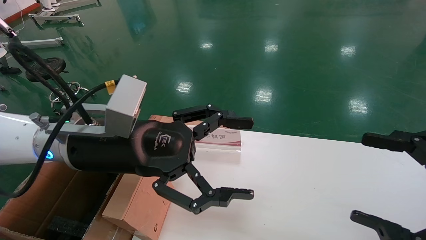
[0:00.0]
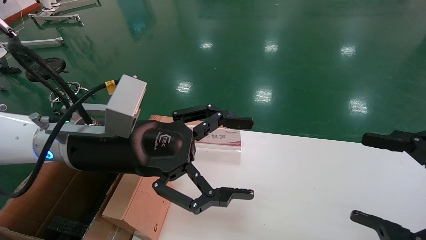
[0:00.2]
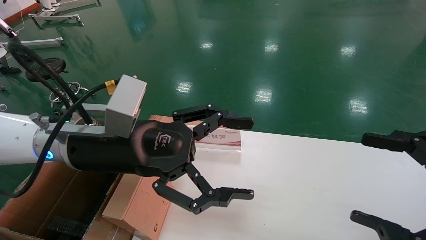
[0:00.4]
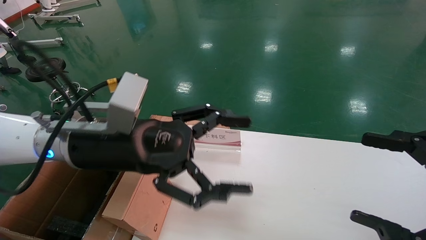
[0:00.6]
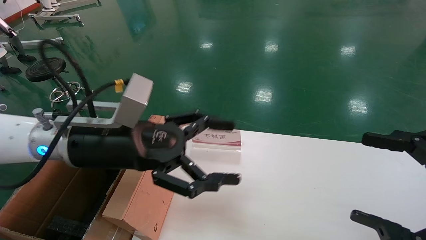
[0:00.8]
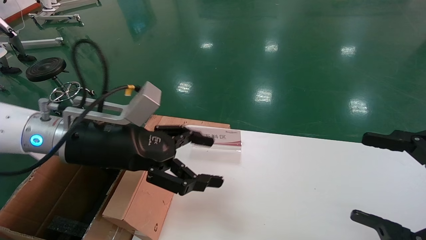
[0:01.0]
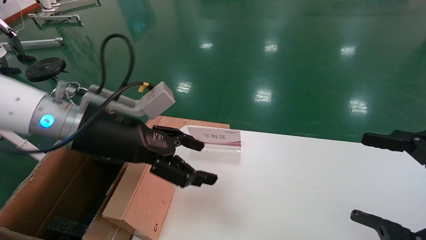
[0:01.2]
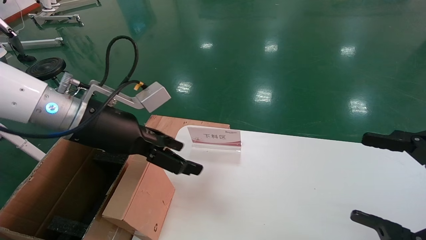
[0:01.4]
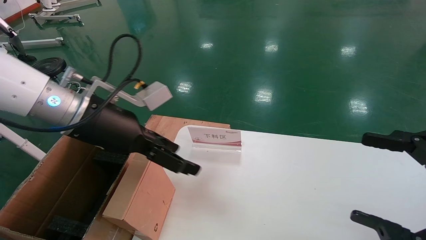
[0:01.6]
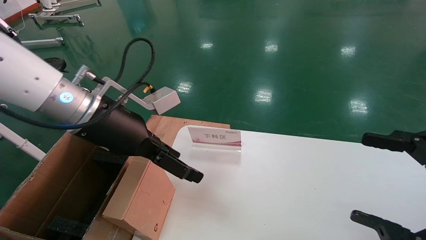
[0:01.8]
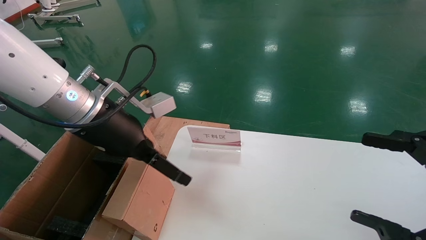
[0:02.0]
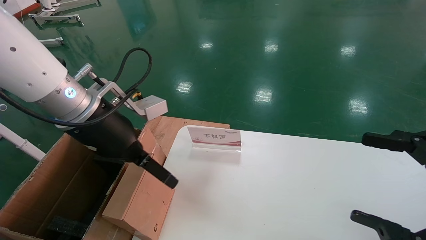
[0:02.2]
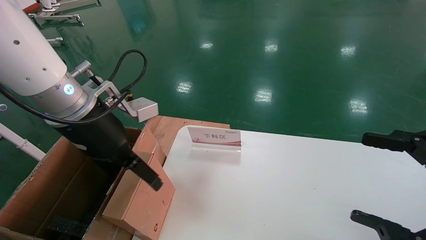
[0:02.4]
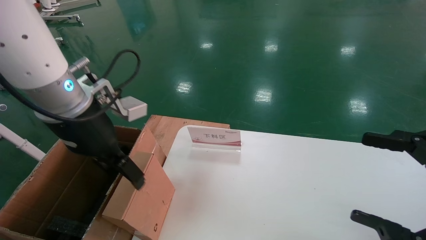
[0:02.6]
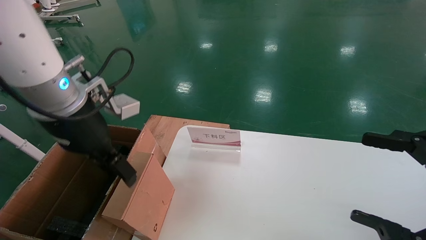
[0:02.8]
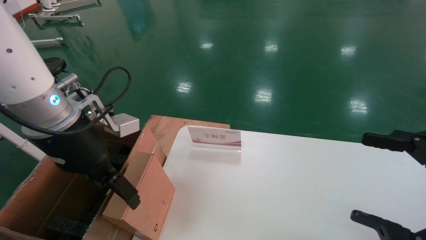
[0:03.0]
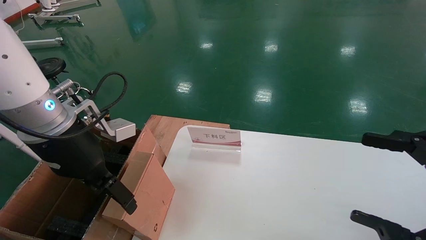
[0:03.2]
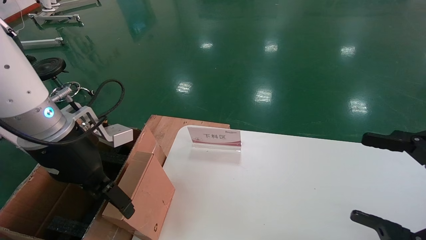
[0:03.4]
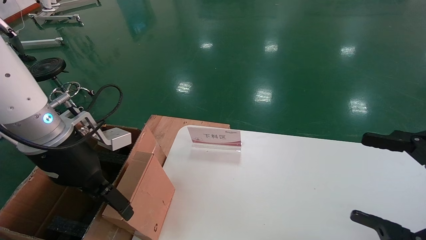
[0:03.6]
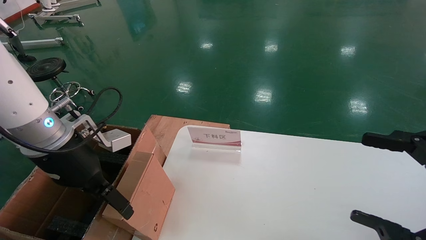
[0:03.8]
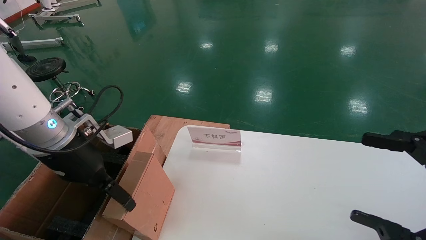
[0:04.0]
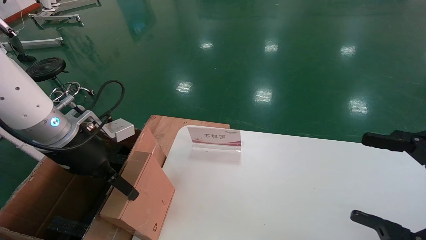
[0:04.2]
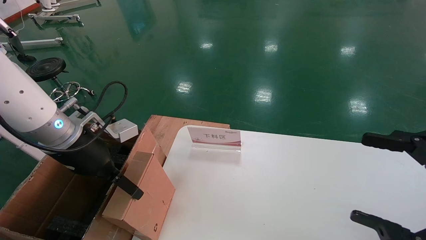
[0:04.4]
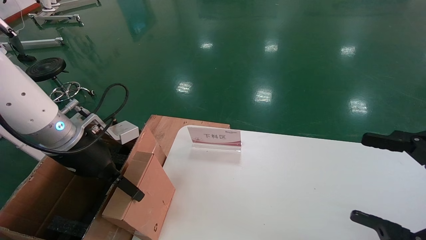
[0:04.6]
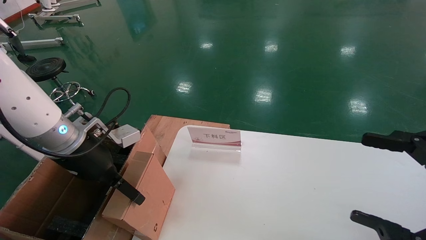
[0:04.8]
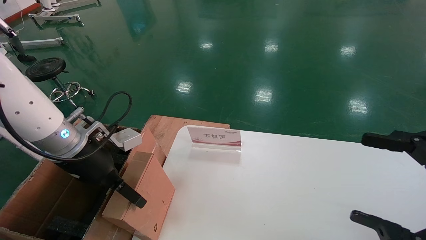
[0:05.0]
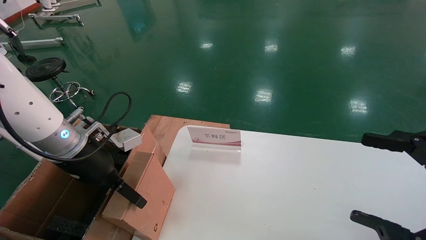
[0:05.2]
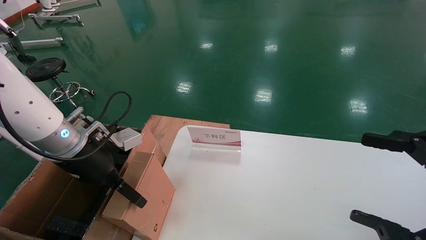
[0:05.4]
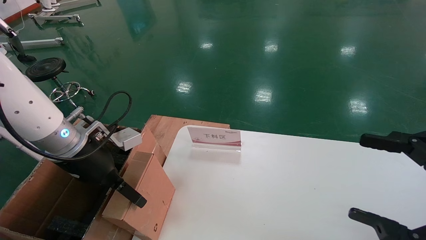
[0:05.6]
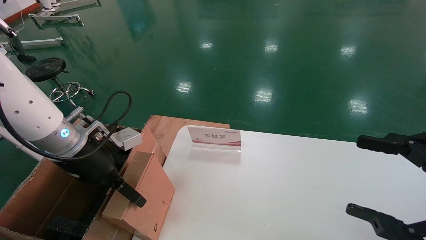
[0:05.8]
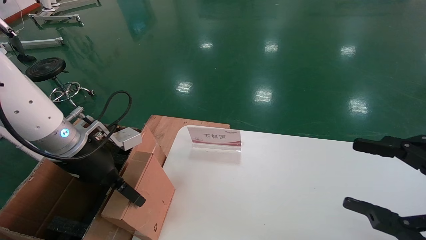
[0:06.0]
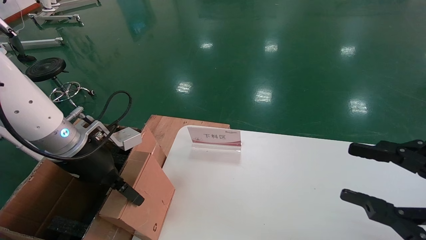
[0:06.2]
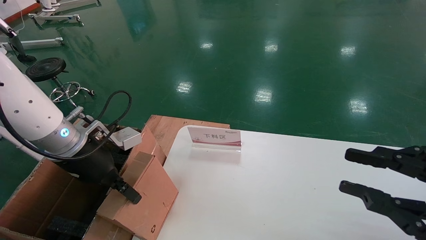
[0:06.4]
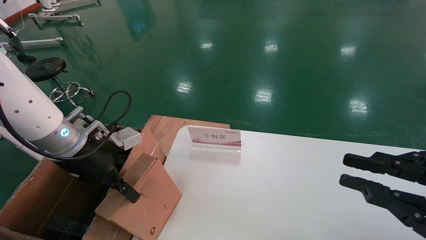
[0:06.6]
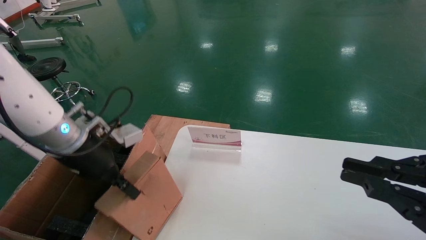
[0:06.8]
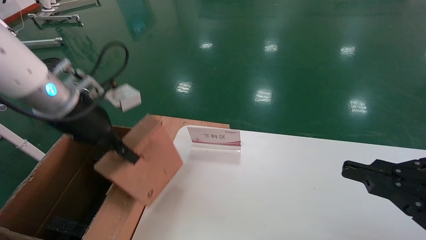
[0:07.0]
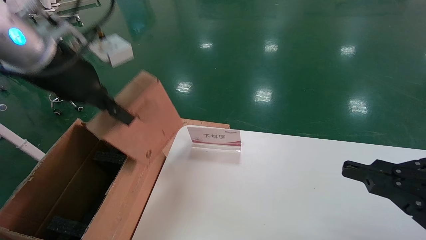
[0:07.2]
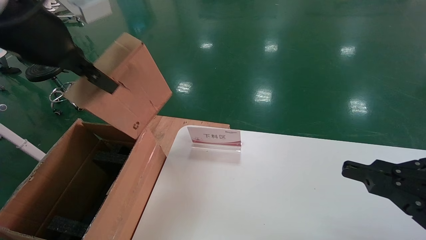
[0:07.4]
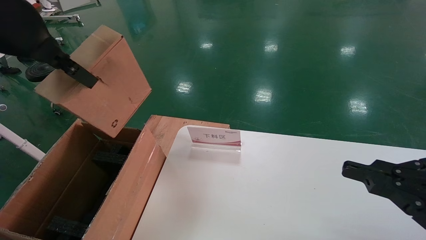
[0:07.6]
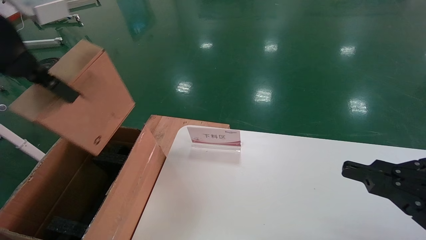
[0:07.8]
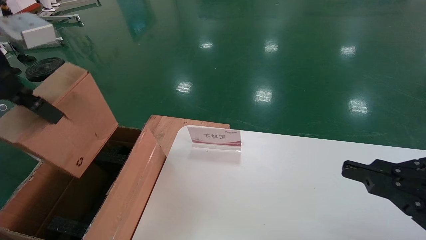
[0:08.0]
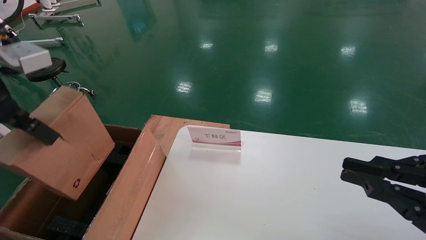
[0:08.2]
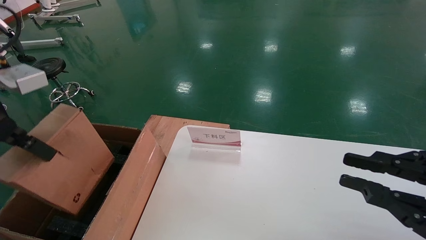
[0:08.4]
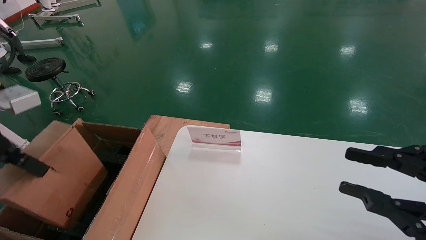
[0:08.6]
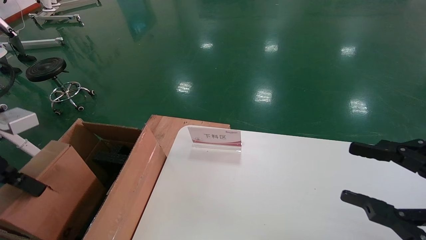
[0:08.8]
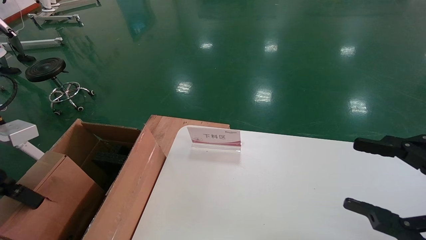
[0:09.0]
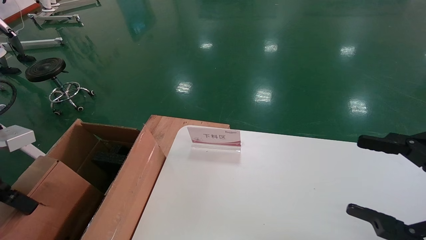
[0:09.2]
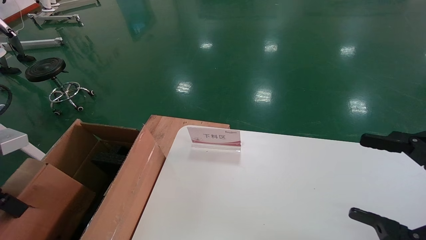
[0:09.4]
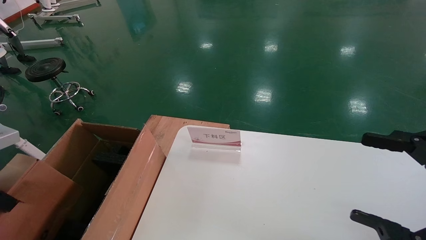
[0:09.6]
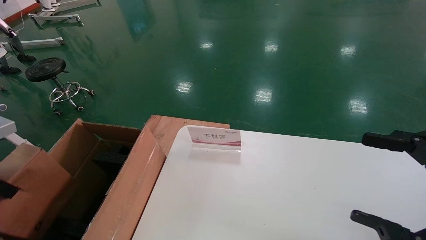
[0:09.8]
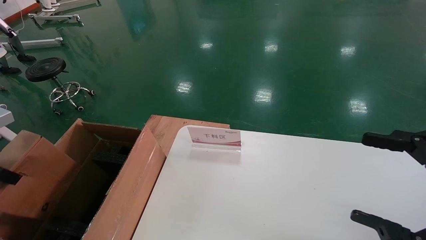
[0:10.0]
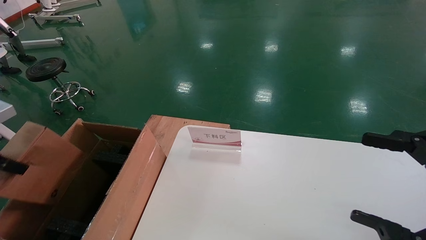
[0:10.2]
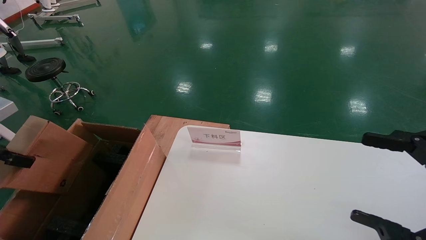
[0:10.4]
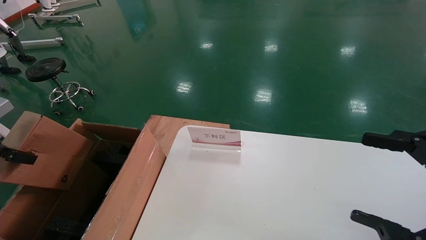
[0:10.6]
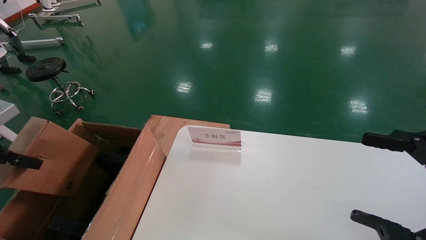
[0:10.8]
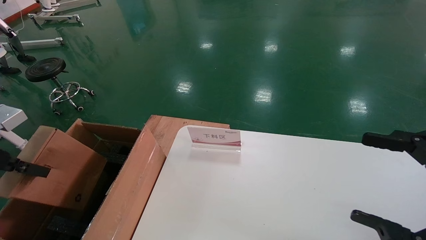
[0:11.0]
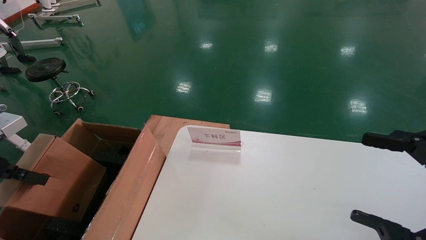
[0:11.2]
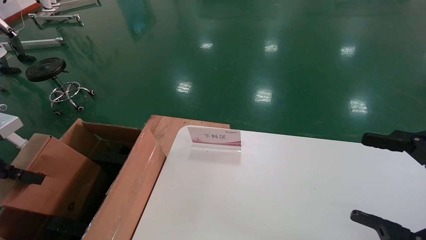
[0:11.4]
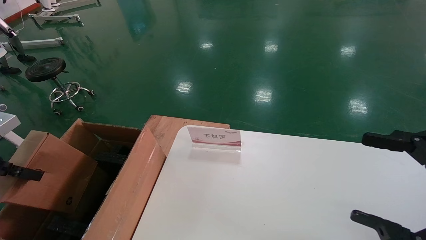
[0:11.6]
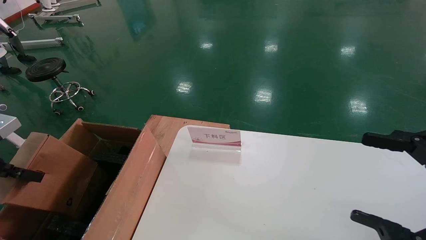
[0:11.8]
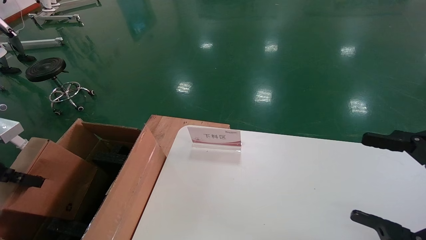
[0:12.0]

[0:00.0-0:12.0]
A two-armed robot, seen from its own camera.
Task of the whole recording: pick up the small cardboard box and load it into the large cardboard box.
Step, 0:00.8 to 0:06.6: Pick up the mouse and power cord box.
0:00.0 to 0:01.6: The left gripper ends up approximately 5 cm from where it was.
0:03.0 to 0:04.4: The left gripper heads downward, covering approximately 5 cm.
0:04.4 to 0:06.0: The grippers stay close to where they were, moving slightly.
0:06.0 to 0:07.6: The left gripper moves upward, approximately 20 cm, and closes its fingers. Meanwhile the right gripper closes.
0:07.6 to 0:09.0: The left gripper shifts about 20 cm downward and to the left. The right gripper opens its fingers.
0:09.0 to 0:10.4: The left gripper heads to the left, covering about 10 cm. Meanwhile the right gripper opens up.
0:10.4 to 0:12.0: The grippers make only small movements.

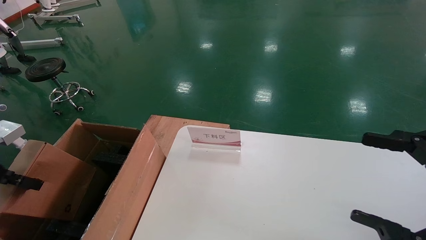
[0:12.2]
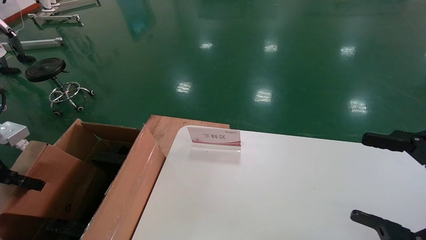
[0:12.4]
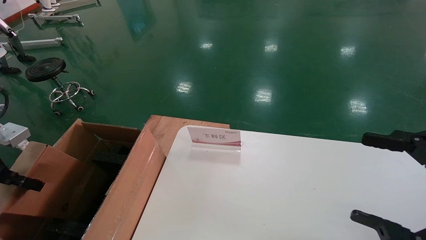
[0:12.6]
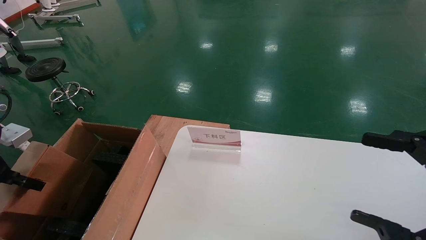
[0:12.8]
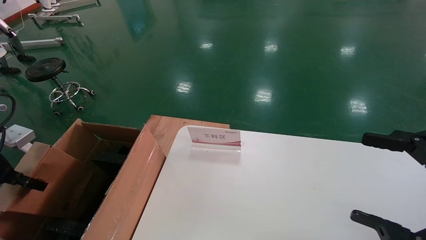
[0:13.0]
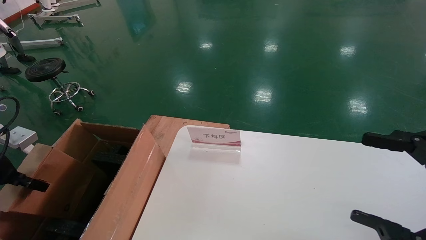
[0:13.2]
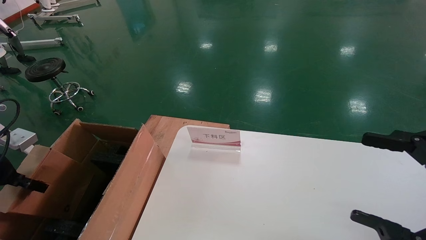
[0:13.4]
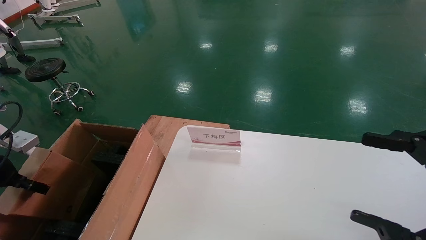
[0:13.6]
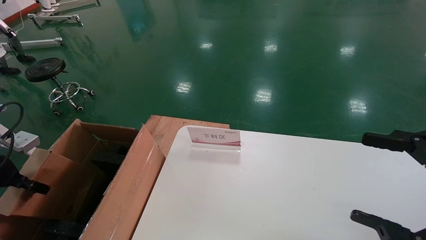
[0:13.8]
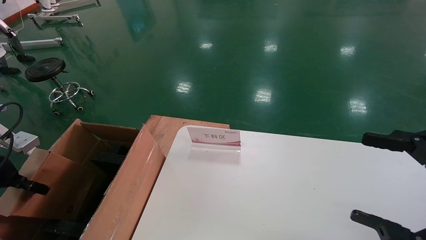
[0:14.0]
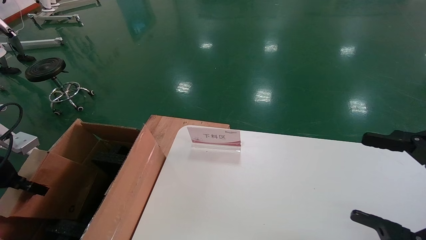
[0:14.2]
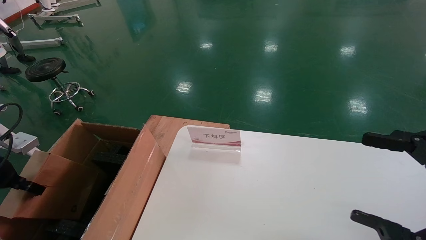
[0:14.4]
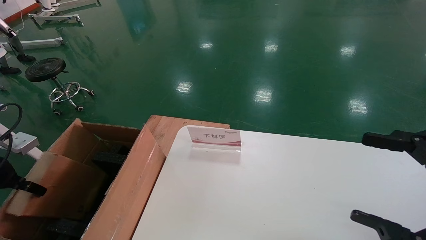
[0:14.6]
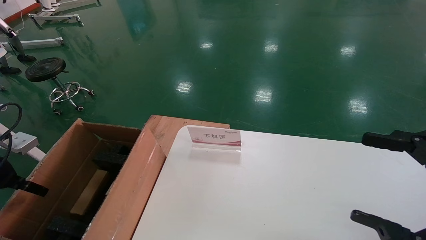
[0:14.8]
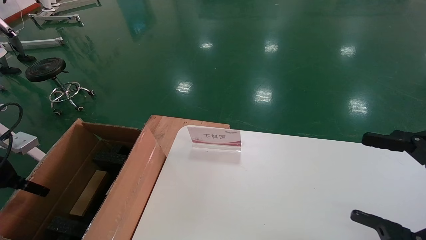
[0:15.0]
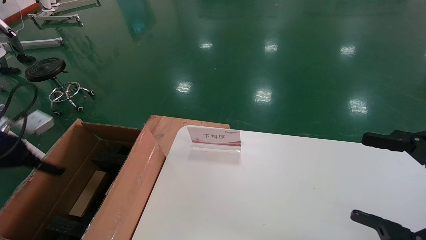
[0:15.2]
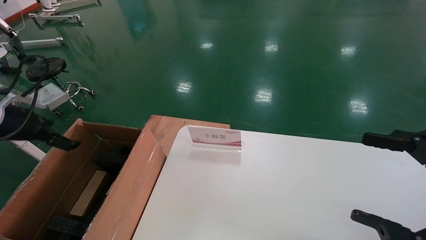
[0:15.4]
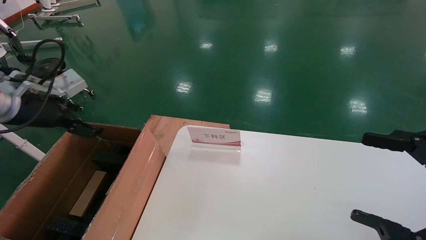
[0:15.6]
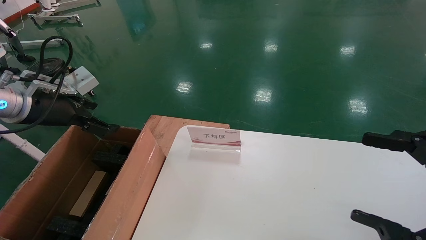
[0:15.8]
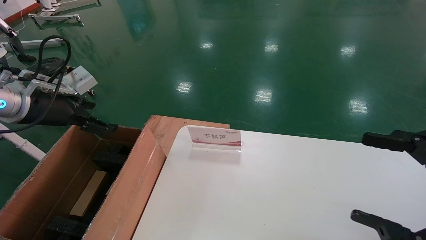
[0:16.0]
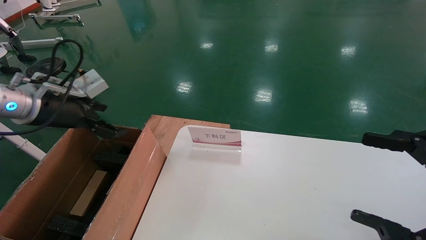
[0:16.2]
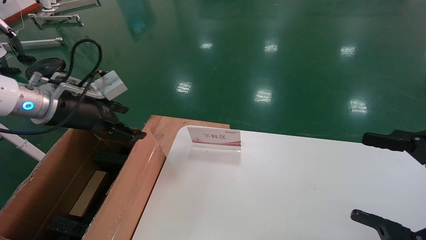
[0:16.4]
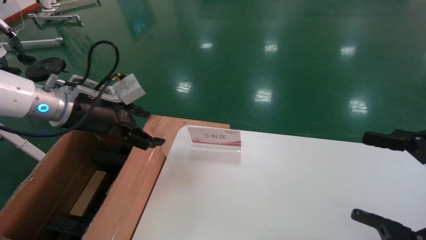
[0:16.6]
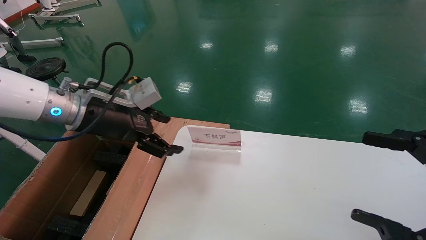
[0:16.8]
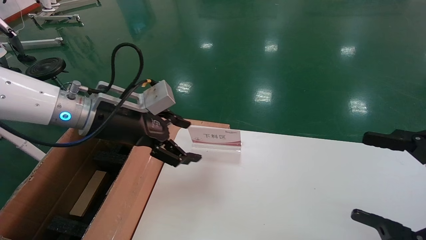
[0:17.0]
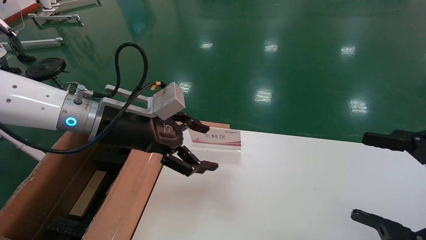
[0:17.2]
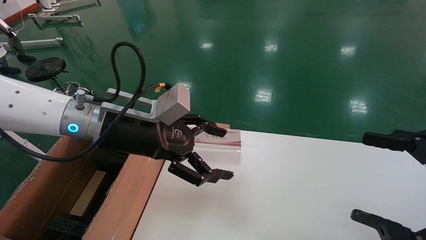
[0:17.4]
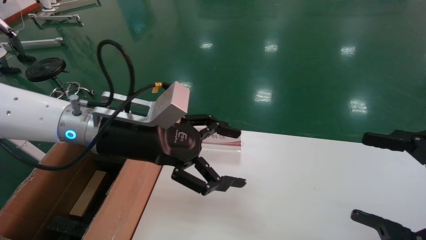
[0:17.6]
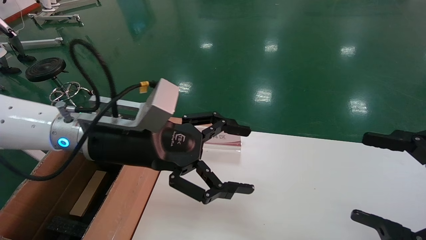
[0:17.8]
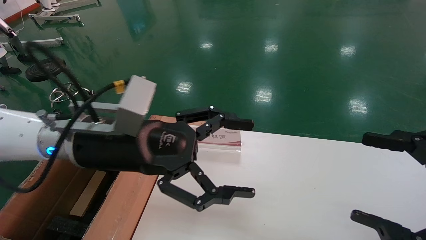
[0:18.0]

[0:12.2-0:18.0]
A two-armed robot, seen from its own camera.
Task of the whole recording: pick up the small cardboard box and load it into the large cardboard box.
Step, 0:12.2 to 0:14.8: Place the mouse and power cord box into the case.
0:12.2 to 0:13.6: The left gripper ends up approximately 5 cm from where it was.
0:13.6 to 0:15.0: The left gripper opens up.
0:15.0 to 0:16.6: The left gripper travels to the right and upward by roughly 20 cm.
0:16.6 to 0:18.0: The left gripper shifts roughly 15 cm to the right and backward.
